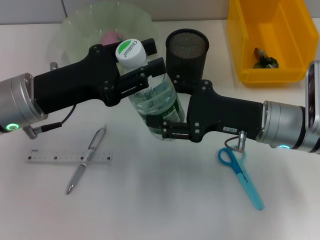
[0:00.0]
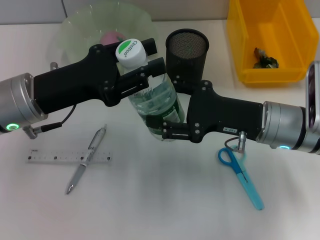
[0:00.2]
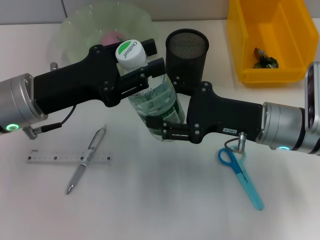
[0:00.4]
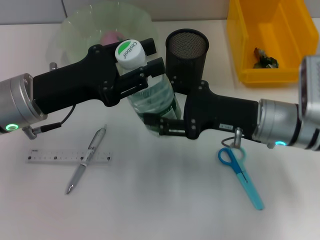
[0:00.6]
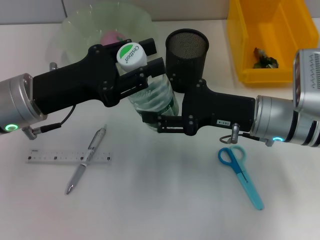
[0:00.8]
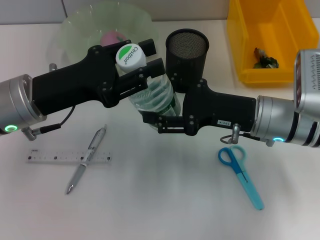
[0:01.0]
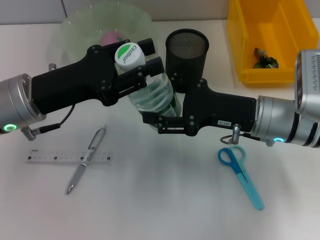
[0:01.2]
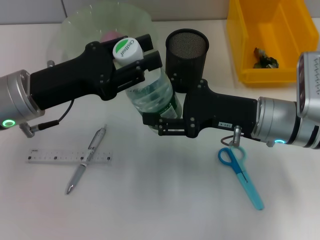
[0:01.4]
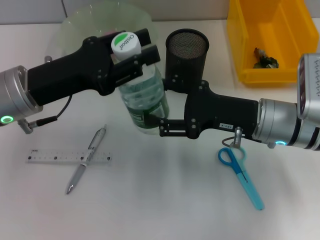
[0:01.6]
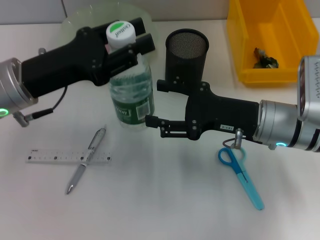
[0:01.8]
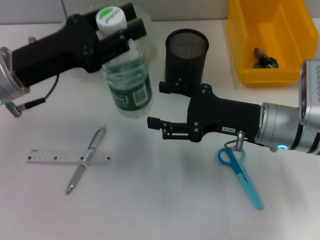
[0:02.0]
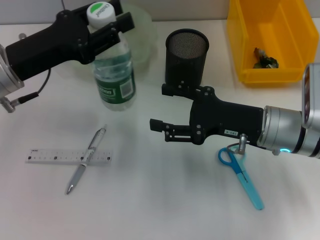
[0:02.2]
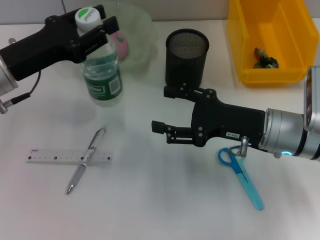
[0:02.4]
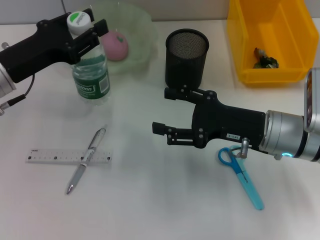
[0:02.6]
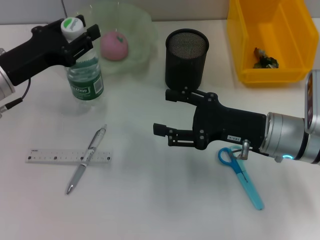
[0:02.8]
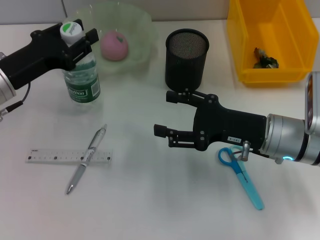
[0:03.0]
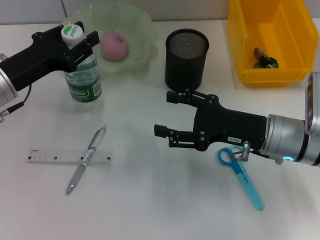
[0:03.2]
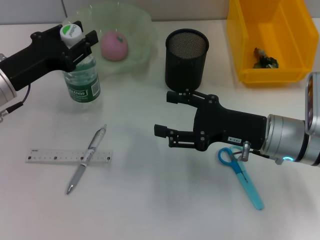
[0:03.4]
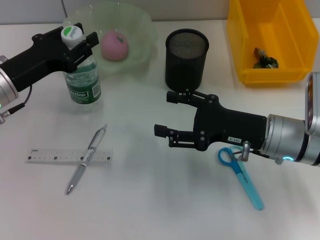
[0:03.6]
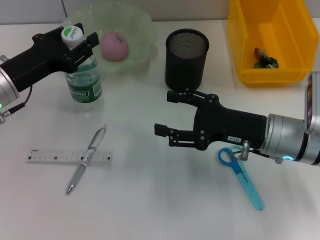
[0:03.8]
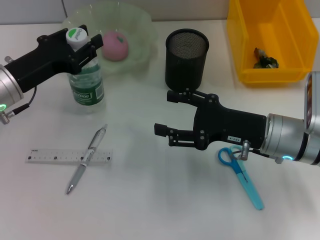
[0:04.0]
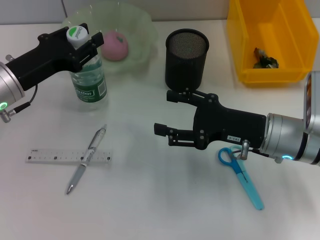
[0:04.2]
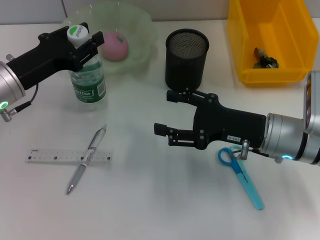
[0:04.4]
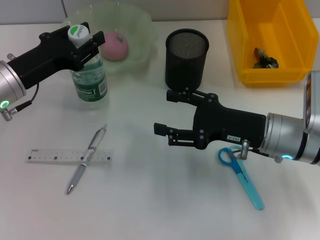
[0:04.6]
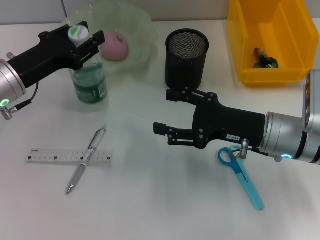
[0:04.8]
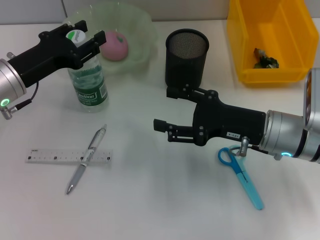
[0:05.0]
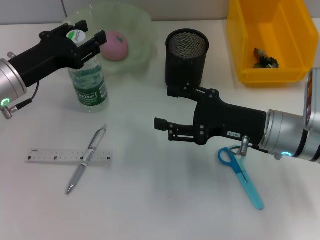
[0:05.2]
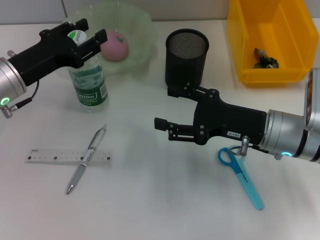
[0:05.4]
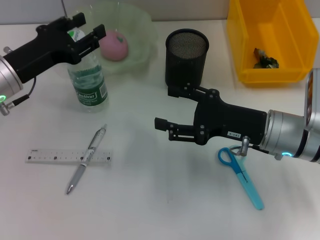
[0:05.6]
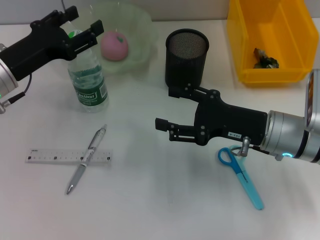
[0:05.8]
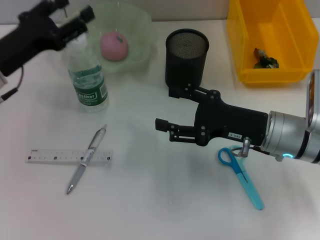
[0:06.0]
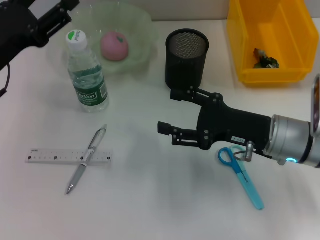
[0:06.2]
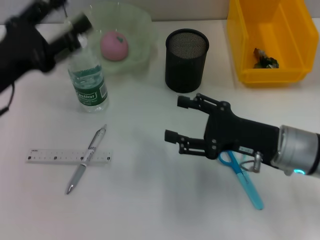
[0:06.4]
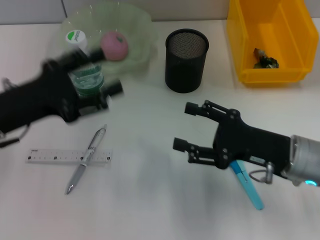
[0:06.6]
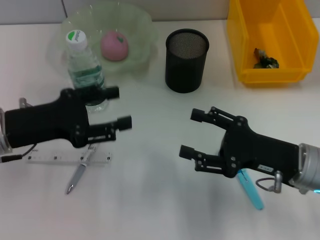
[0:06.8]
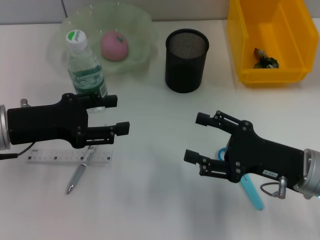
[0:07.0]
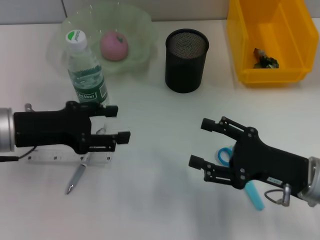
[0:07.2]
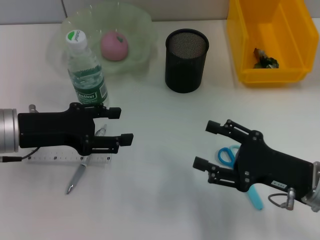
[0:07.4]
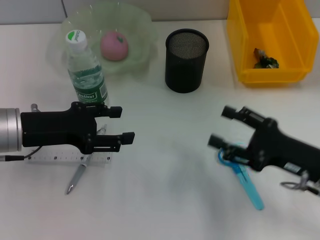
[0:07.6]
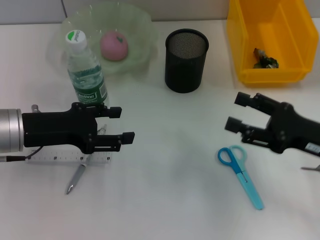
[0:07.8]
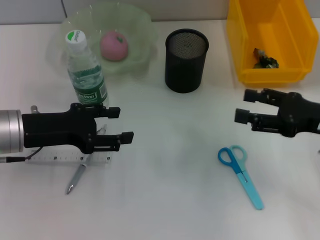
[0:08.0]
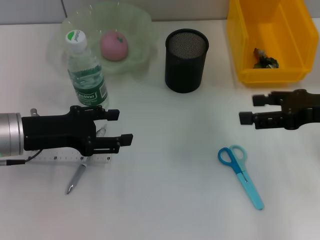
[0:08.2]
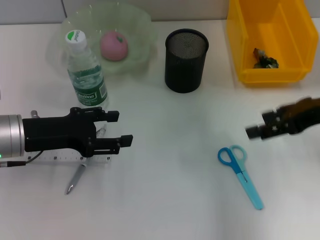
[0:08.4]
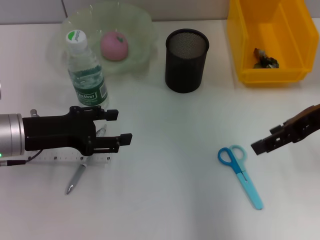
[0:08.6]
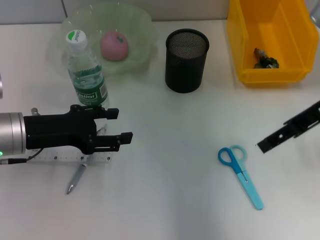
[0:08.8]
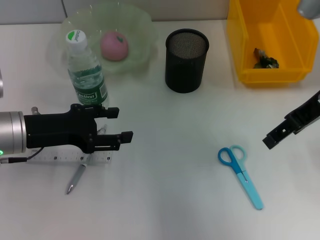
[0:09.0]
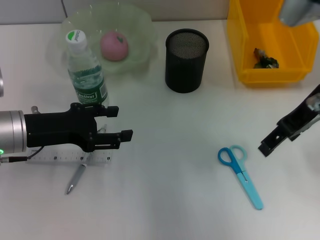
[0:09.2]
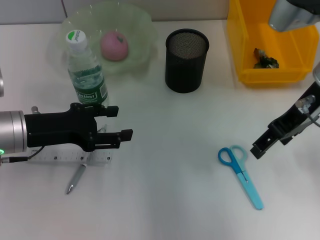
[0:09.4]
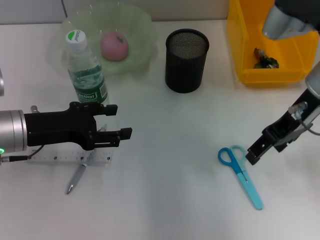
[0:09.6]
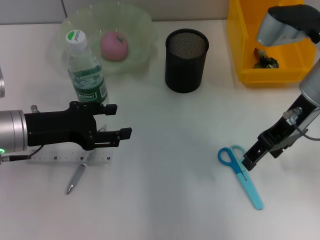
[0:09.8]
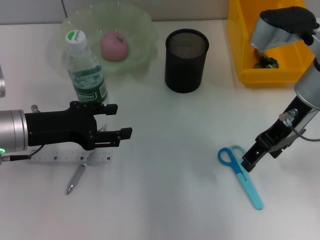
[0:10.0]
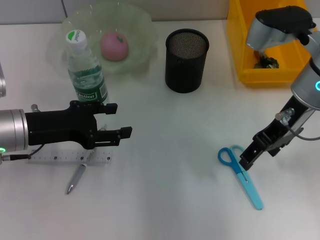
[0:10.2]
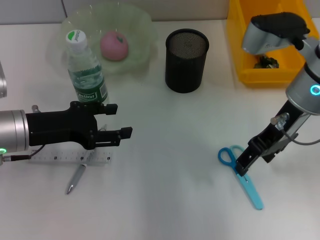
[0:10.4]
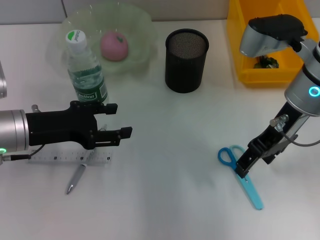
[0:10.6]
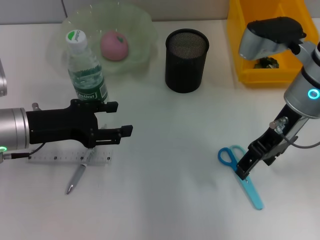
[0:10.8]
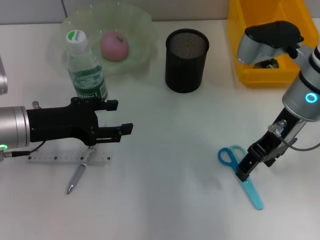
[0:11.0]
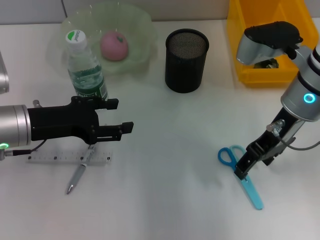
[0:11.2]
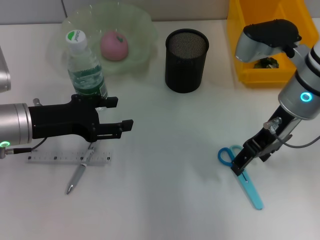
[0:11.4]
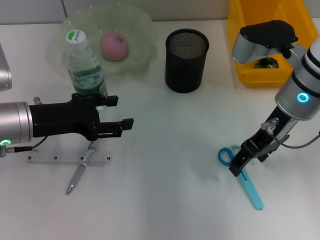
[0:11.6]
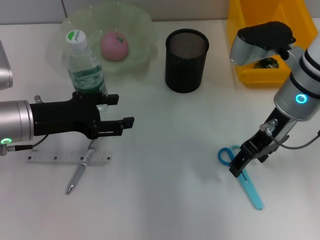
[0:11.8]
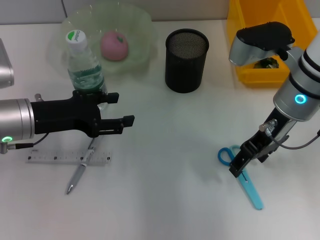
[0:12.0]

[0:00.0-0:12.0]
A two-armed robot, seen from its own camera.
Step, 0:02.0 to 0:05.6: Place the water bottle on the table with the left hand.
0:00.0 to 0:01.6: There are only small adjustments of the grippers.
0:01.6 to 0:03.0: The left gripper shifts by approximately 5 cm.
0:03.0 to 0:04.4: Both grippers stay about where they are.
0:04.4 to 0:06.0: The left gripper opens its fingers.
0:06.0 to 0:07.6: The right gripper goes some 10 cm to the right and backward.
0:07.6 to 0:09.0: The right gripper is displaced upward and forward by approximately 20 cm.
0:09.0 to 0:10.4: The right gripper shifts roughly 5 cm downward.
0:10.4 to 0:12.0: The grippers stay close to where they were, moving slightly.

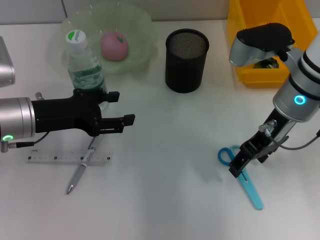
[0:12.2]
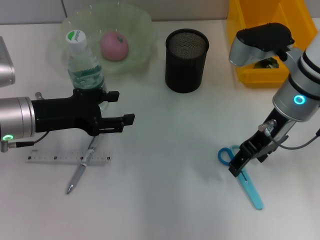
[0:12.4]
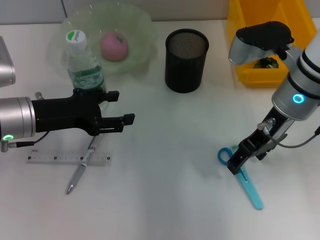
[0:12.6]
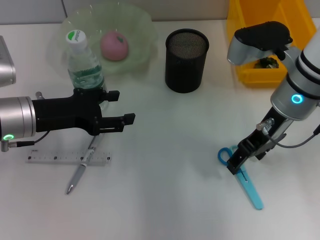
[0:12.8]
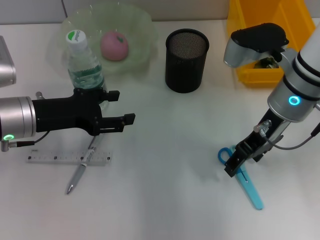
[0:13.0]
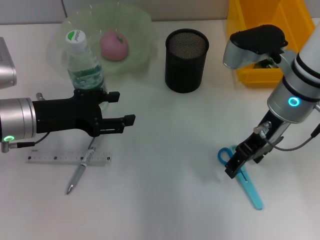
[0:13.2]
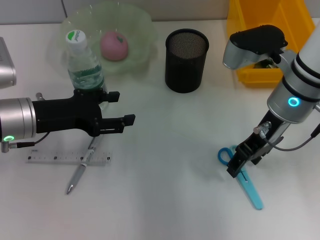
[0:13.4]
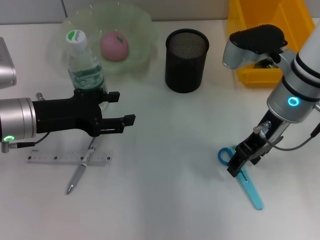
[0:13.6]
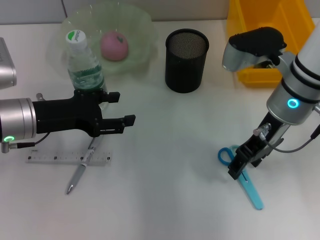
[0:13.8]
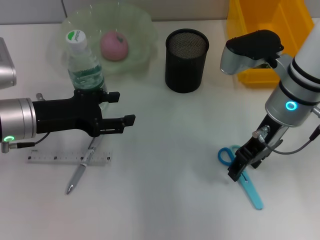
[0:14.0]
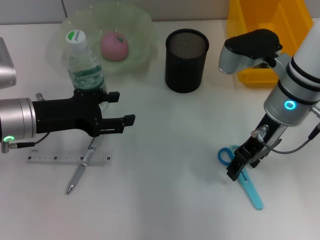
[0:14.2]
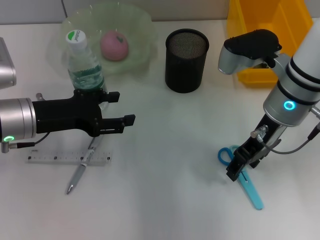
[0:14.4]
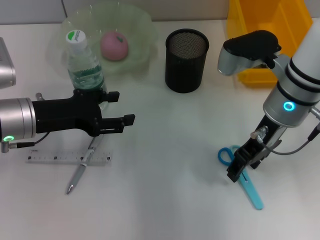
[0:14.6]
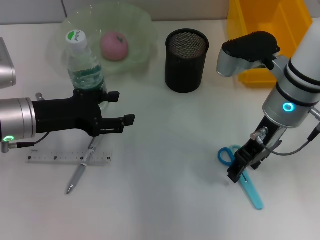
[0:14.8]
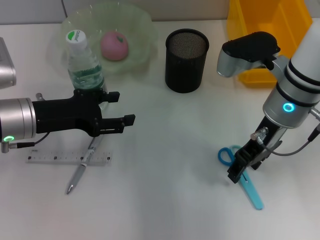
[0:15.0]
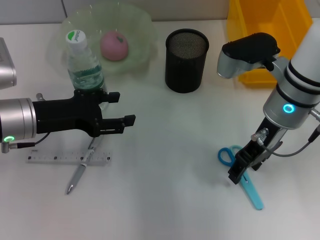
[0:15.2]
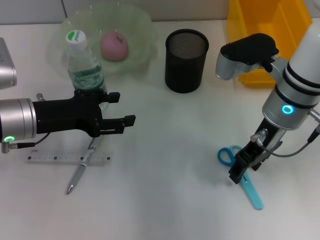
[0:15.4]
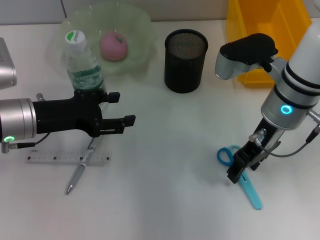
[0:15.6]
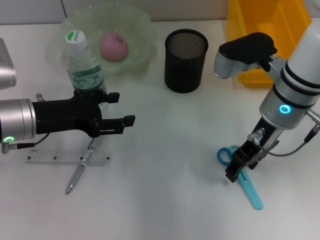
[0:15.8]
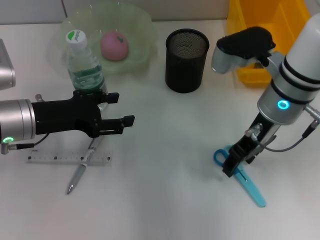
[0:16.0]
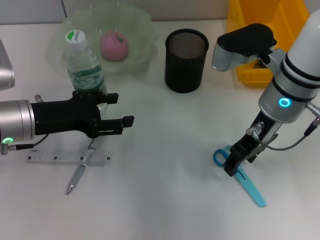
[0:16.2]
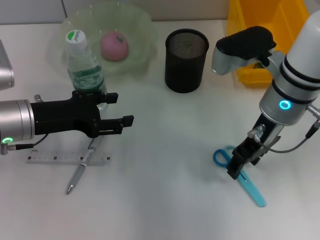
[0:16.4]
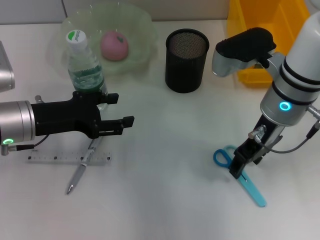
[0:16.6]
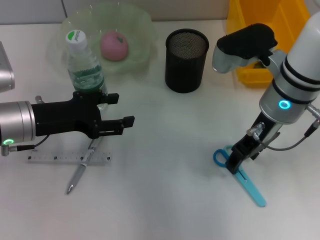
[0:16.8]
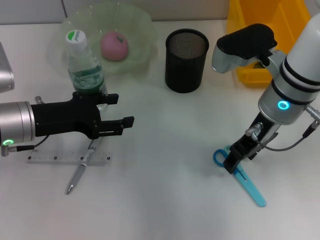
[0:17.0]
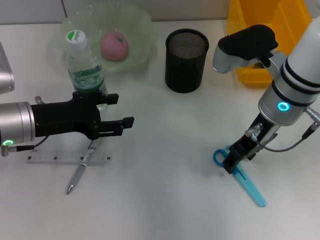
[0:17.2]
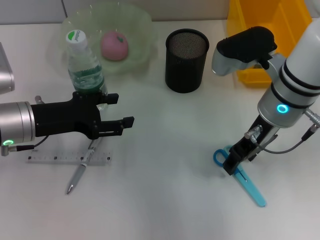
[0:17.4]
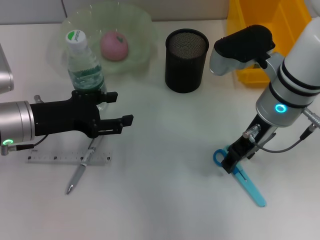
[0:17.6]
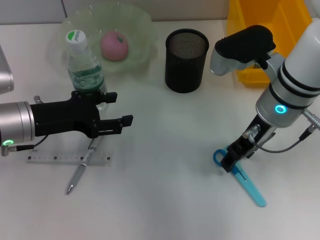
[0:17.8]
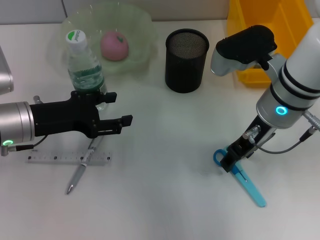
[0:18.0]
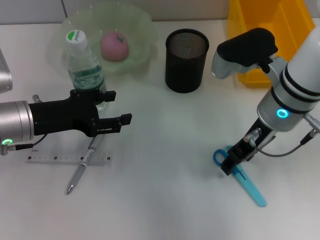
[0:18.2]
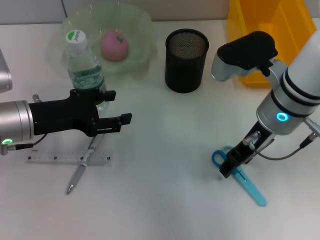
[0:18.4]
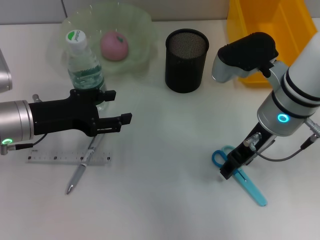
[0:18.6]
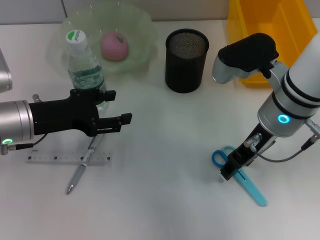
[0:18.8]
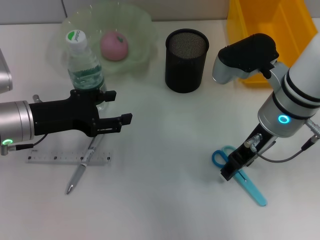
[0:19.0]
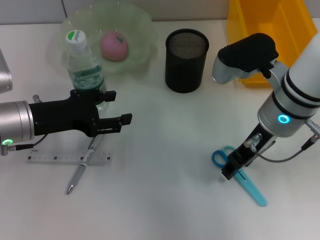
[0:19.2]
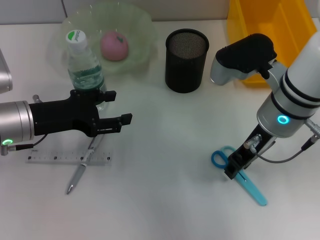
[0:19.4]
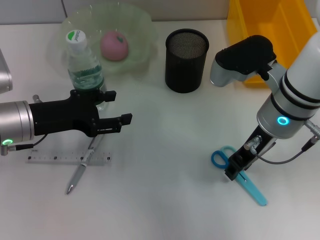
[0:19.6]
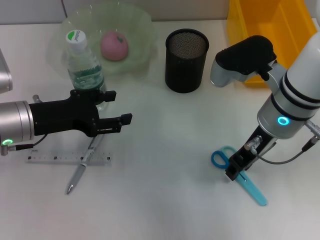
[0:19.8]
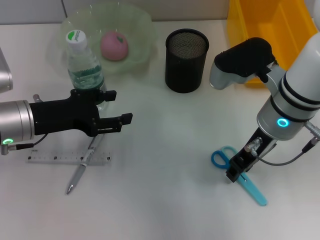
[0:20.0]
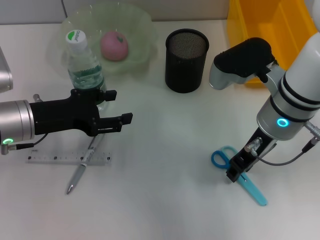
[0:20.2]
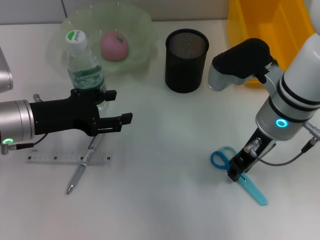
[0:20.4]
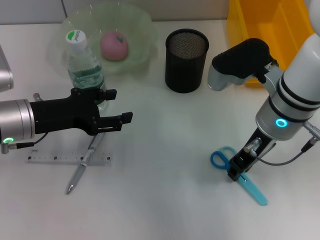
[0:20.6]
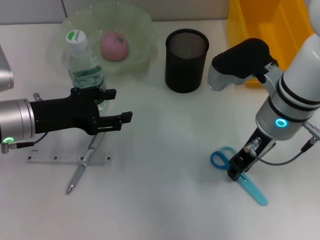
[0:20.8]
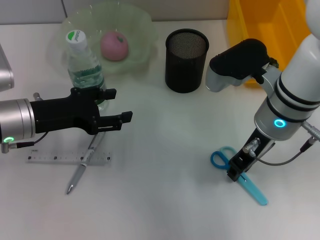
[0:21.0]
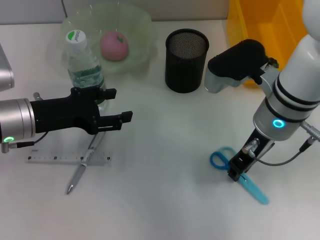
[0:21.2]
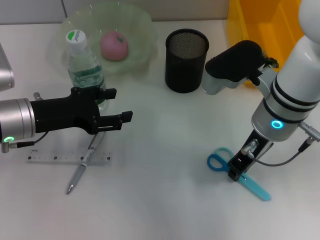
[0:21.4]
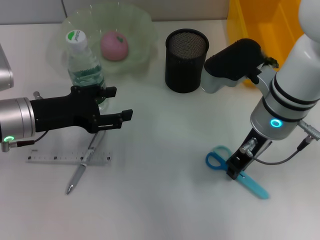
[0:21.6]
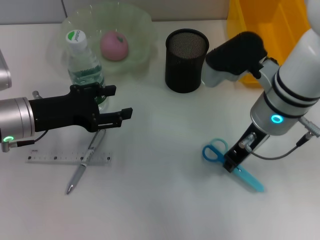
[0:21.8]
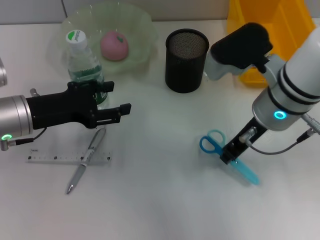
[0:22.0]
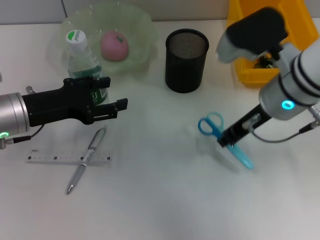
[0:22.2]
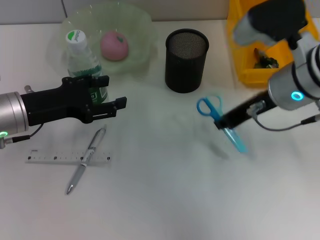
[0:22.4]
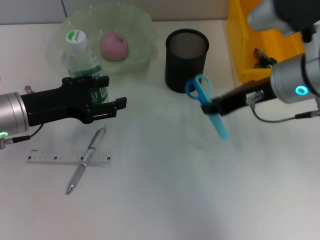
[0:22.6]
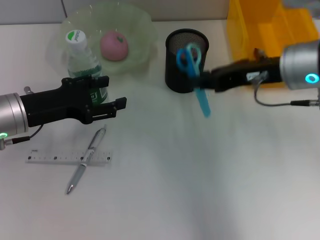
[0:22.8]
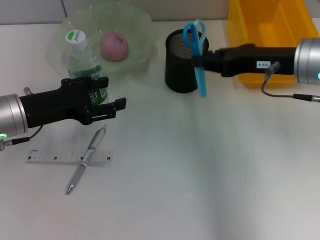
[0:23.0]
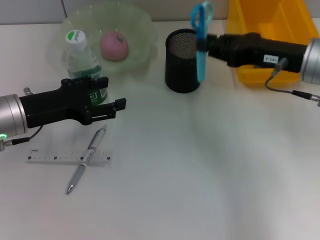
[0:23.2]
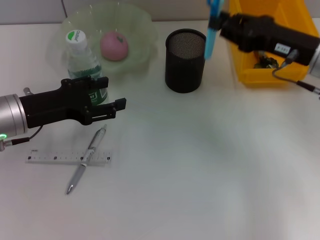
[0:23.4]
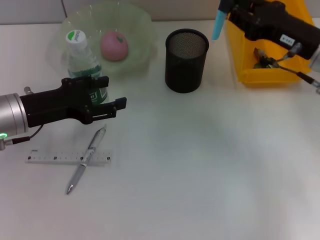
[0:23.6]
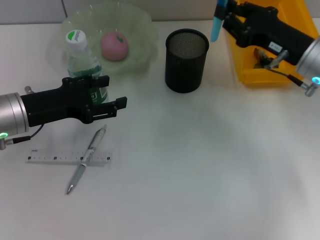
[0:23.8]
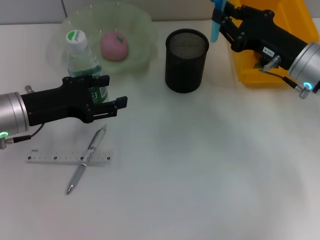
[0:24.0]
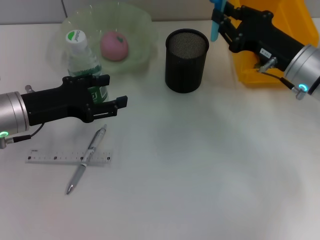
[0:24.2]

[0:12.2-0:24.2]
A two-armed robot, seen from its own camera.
Step, 0:12.2 to 0:21.4: Grab the blue scissors with the right hand.
0:12.2 to 0:13.8: The two grippers keep their place.
0:13.8 to 0:15.2: Both grippers stay about where they are.
0:15.2 to 0:16.6: Both grippers stay about where they are.
0:16.6 to 0:18.2: The grippers move only a little.
0:18.2 to 0:21.2: The two grippers keep their place.
0:21.2 to 0:22.6: The right gripper shifts by some 5 cm.
0:22.6 to 0:24.2: The right gripper is displaced downward and to the right by some 10 cm.
